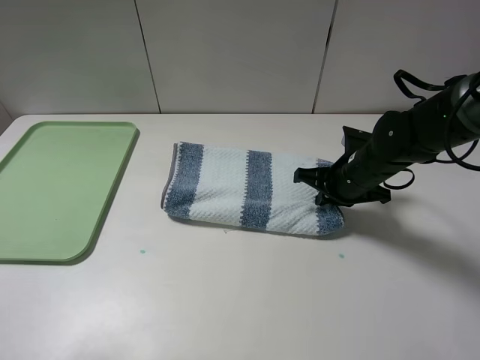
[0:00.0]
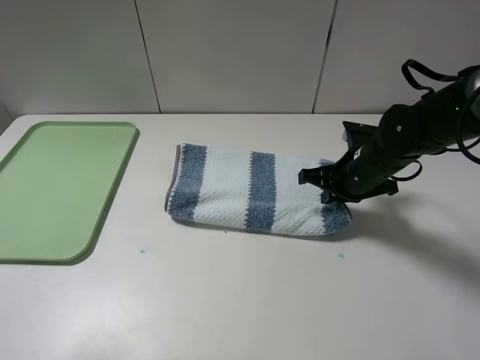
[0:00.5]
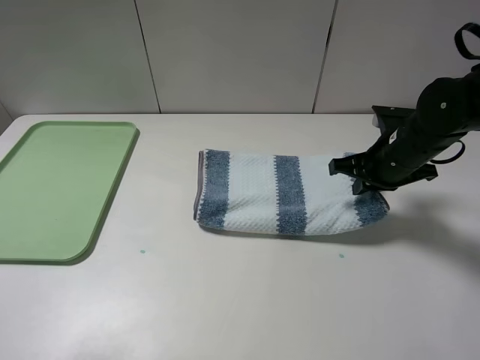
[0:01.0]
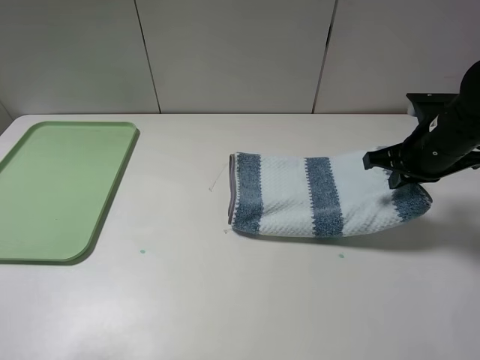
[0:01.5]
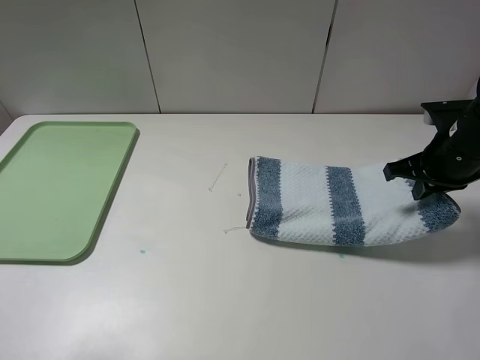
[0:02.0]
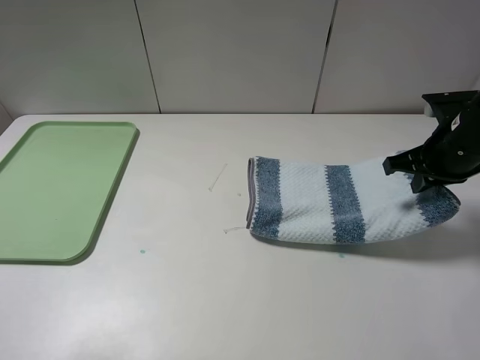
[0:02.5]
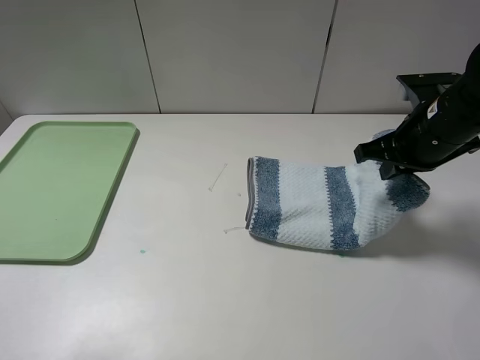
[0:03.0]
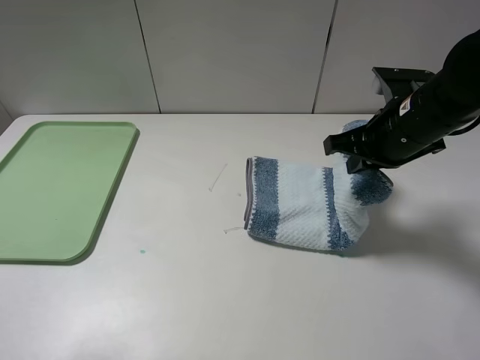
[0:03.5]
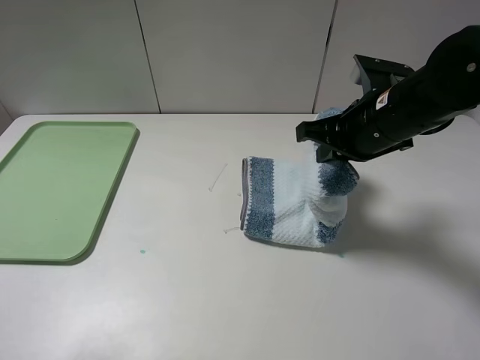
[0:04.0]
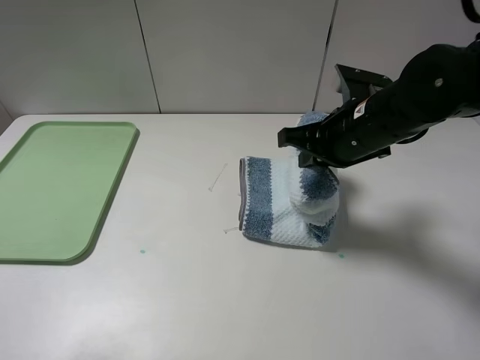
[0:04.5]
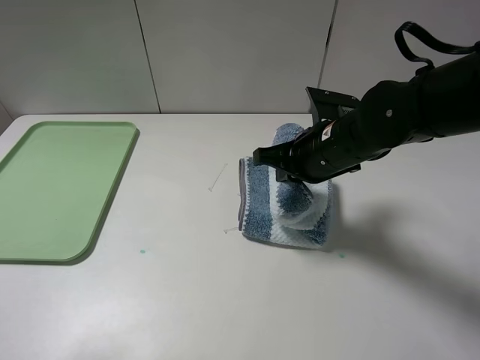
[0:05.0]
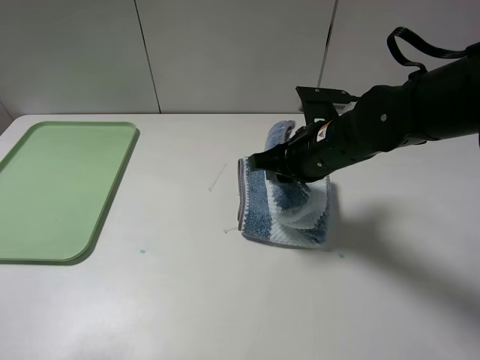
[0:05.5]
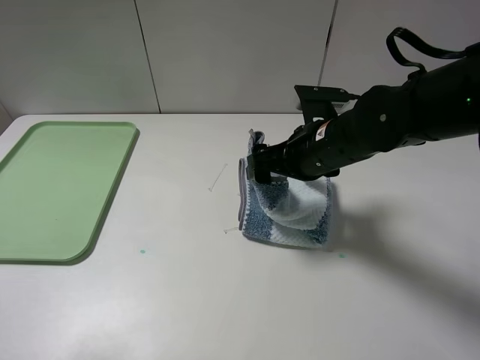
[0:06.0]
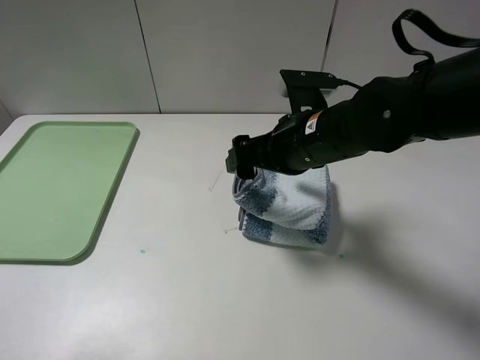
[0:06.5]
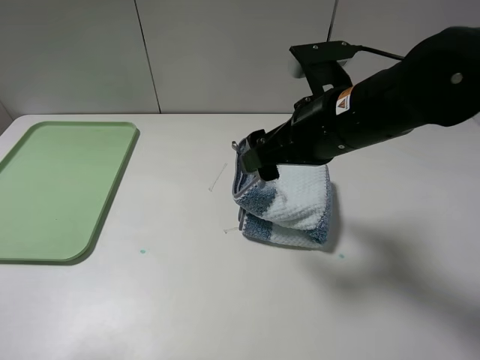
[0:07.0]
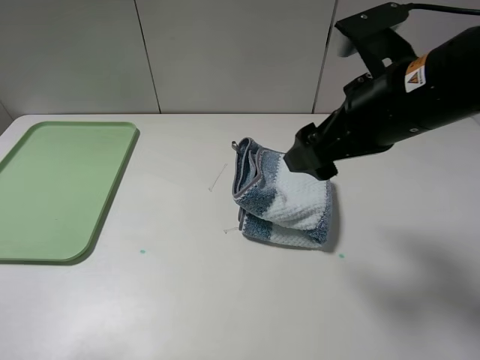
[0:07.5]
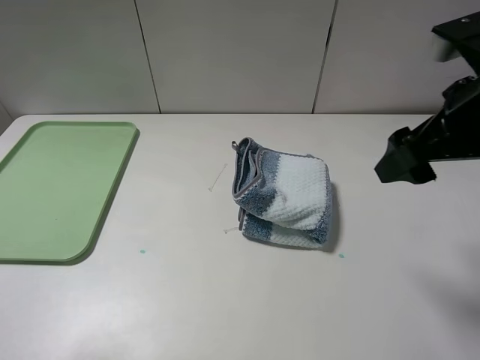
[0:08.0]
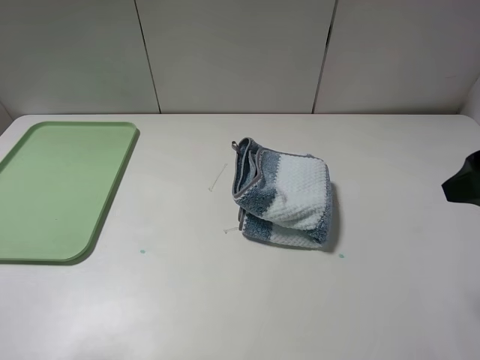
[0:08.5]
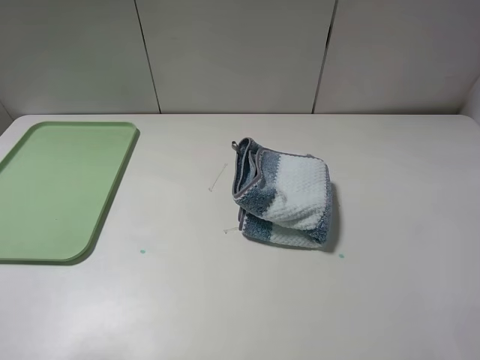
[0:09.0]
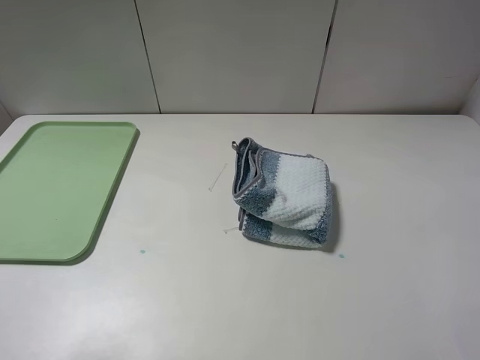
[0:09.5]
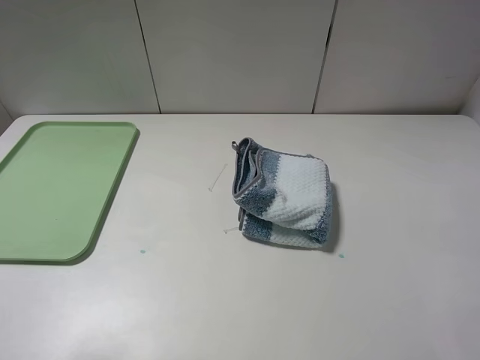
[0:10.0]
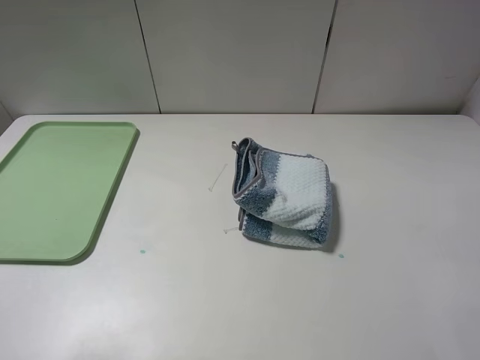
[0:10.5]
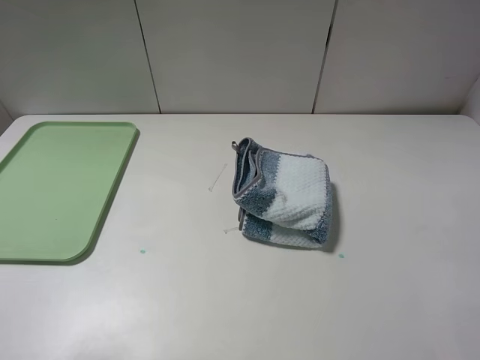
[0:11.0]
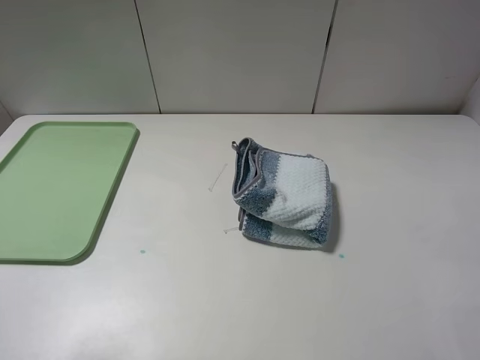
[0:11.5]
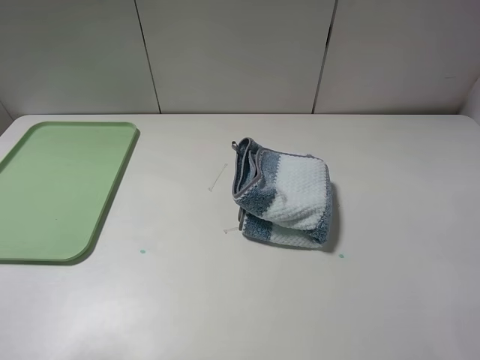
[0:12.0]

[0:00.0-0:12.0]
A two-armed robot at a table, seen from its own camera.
Step, 0:00.5 to 0:07.0: Fold the blue white towel from right to left with right gripper.
0:00.0 to 0:02.0: The right gripper travels to the right and upward by roughly 15 cm.
0:02.0 to 0:04.0: The right gripper shifts approximately 10 cm to the left.
0:04.0 to 0:06.0: The right gripper goes roughly 5 cm to the left, and opens its fingers.
0:06.0 to 0:08.0: The right gripper heads upward, to the right and backward, covering roughly 20 cm.
0:08.0 to 0:10.0: The right gripper goes about 20 cm backward.

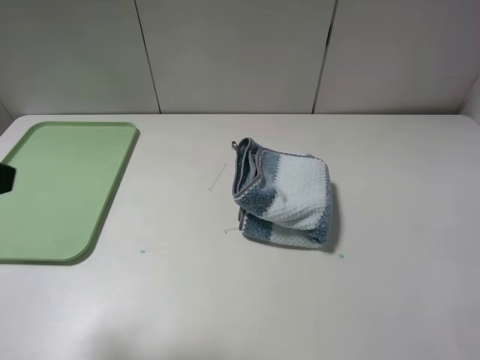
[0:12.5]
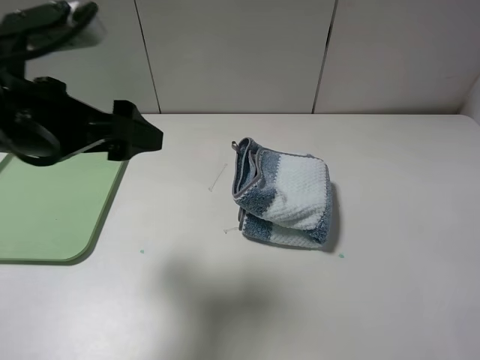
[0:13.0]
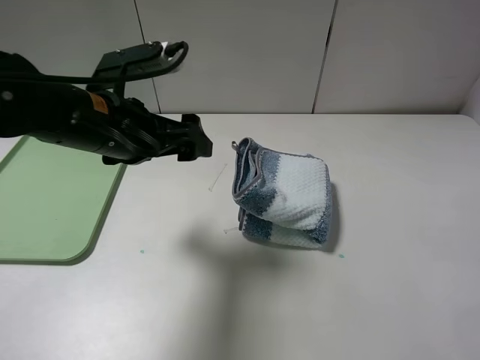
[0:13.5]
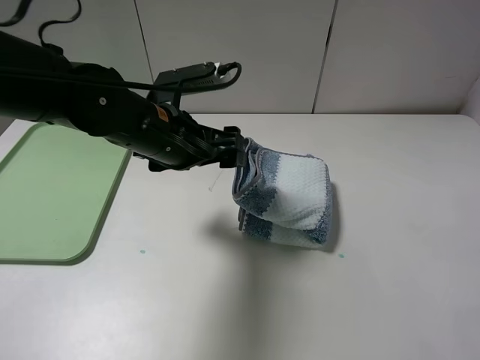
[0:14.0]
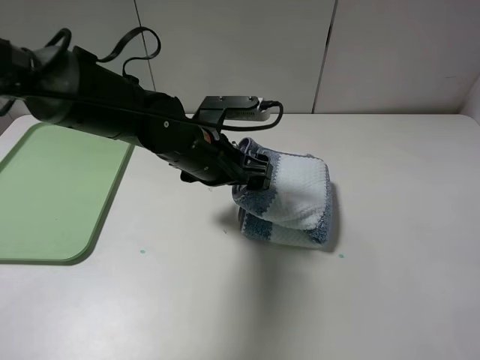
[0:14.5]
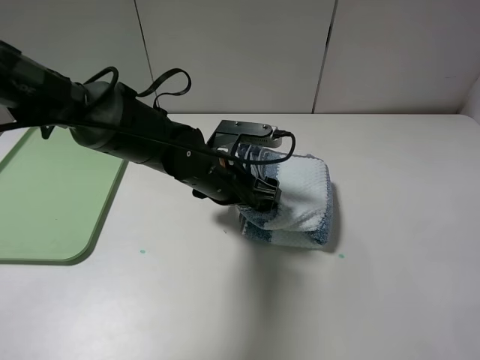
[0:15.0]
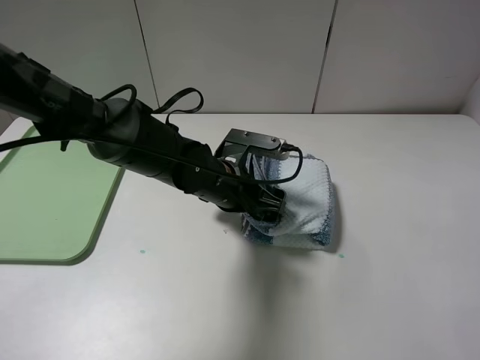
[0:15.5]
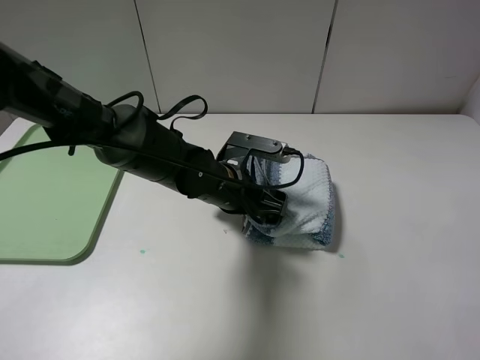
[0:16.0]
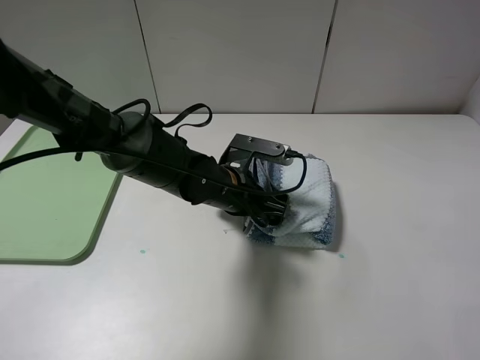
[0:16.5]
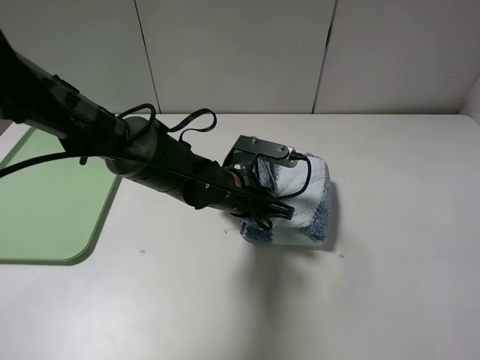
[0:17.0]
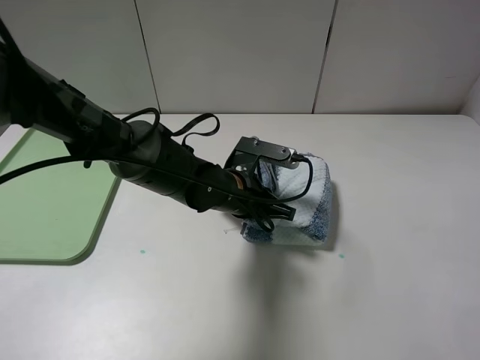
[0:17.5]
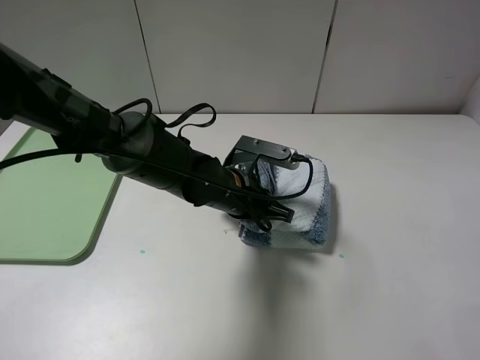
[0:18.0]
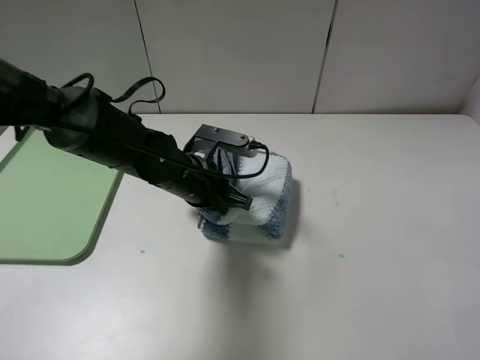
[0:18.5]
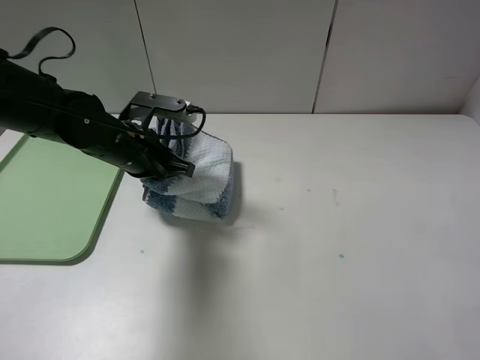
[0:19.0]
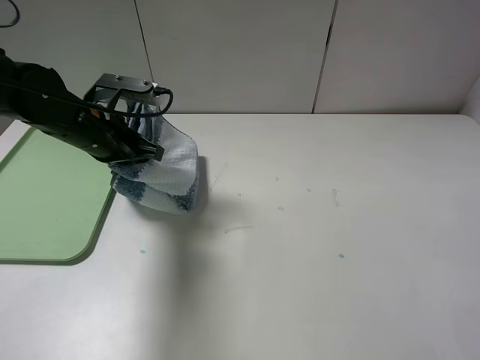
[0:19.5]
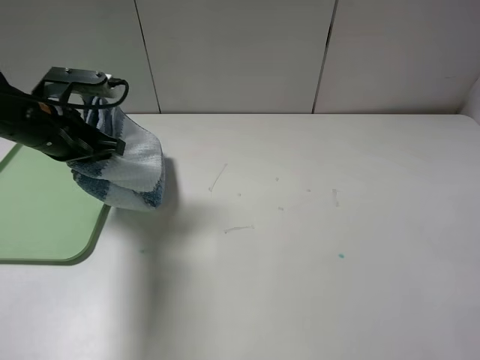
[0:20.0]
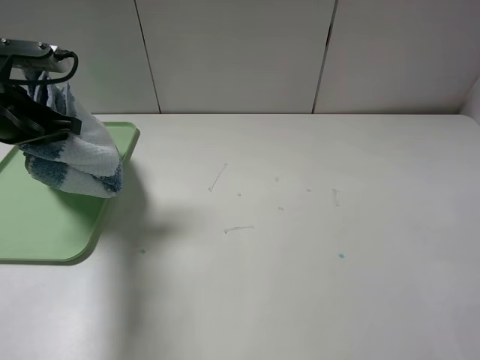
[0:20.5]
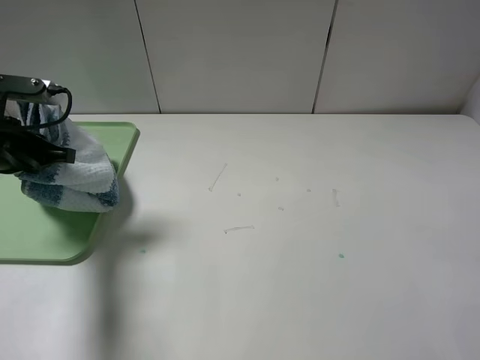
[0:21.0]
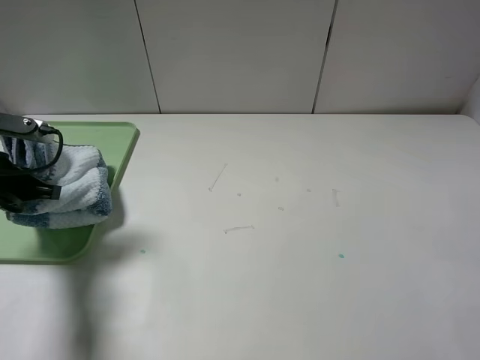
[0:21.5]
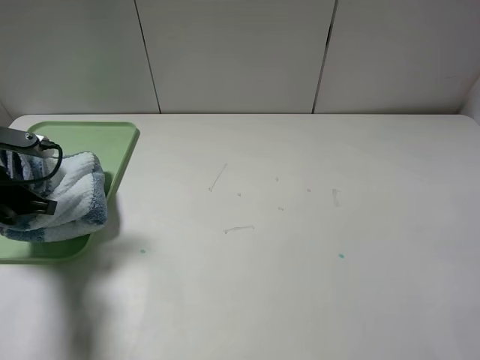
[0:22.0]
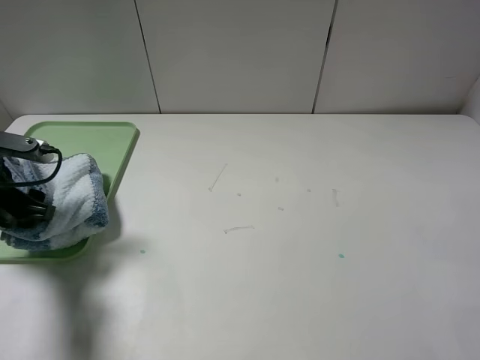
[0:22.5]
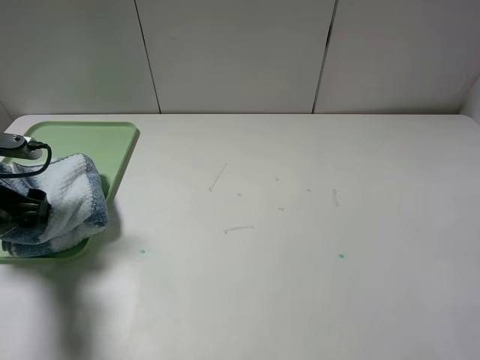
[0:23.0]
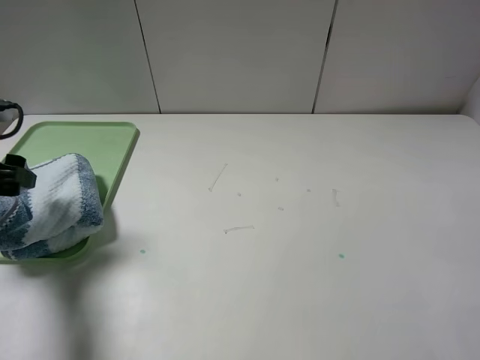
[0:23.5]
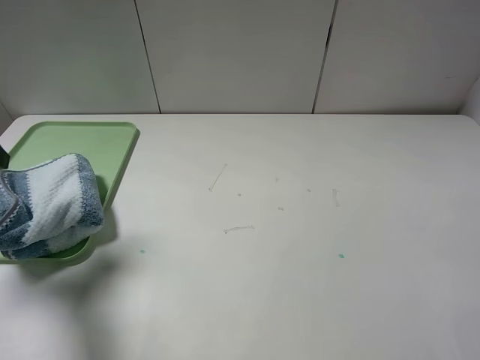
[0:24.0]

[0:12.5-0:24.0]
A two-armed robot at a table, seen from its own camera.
Step, 0:12.5 to 0:17.0: Grasp the blue white towel with the left gripper.
0:12.5 to 0:14.5: The left gripper shifts approximately 35 cm to the right, forward and downward.
0:14.5 to 0:16.5: The left gripper is displaced downward by roughly 5 cm.
0:16.5 to 0:18.5: The left gripper is displaced to the left by approximately 5 cm, and closes its fingers.
0:18.5 to 0:20.0: The left gripper heads to the left and upward, covering approximately 20 cm.
0:20.0 to 0:22.0: The left gripper heads backward and to the left, covering roughly 10 cm.
0:22.0 to 0:24.0: The left gripper heads upward, covering approximately 10 cm, and opens up.

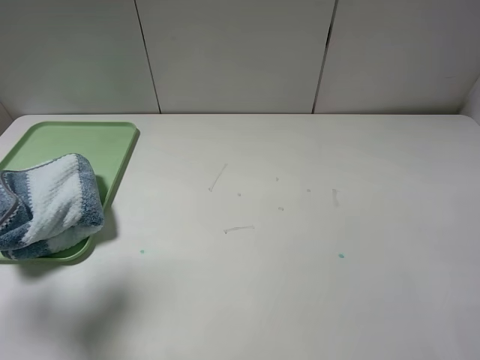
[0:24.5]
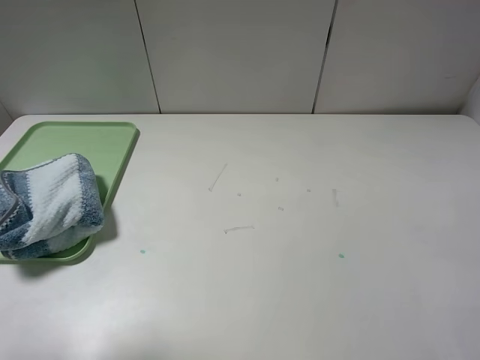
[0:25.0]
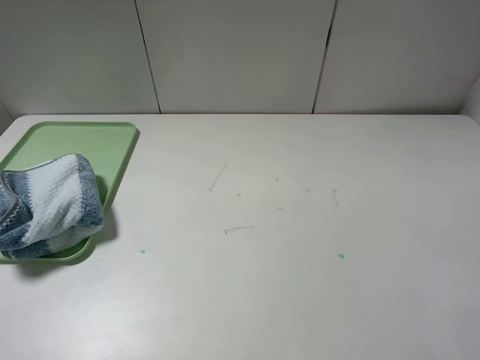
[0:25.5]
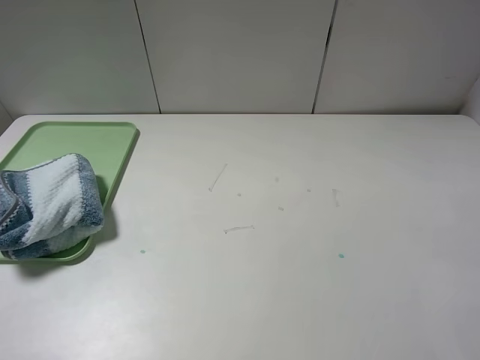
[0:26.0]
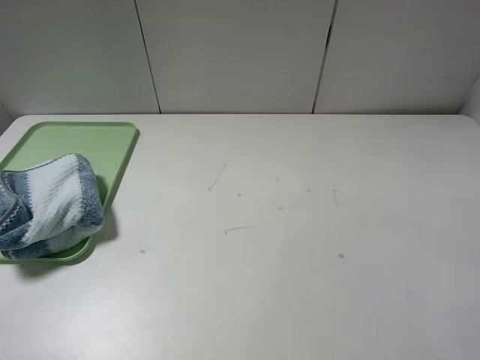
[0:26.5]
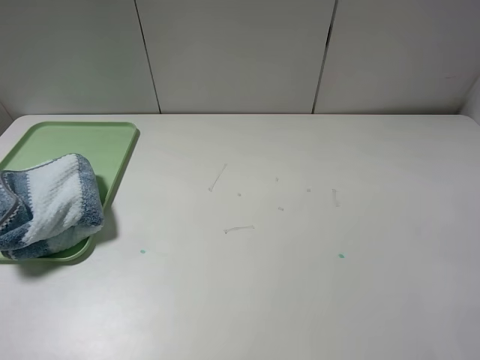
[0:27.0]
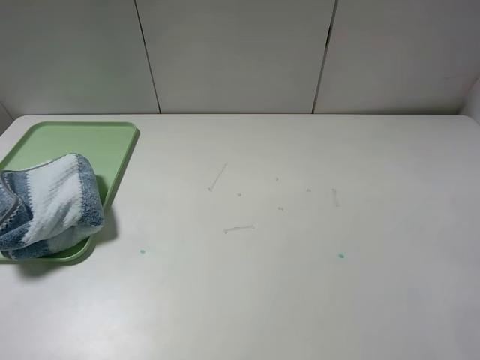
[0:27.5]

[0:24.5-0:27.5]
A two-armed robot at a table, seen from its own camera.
0:24.5 to 0:26.0: The left gripper goes some 15 cm backward.
